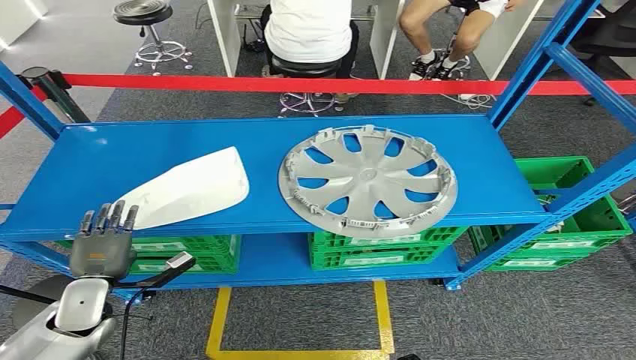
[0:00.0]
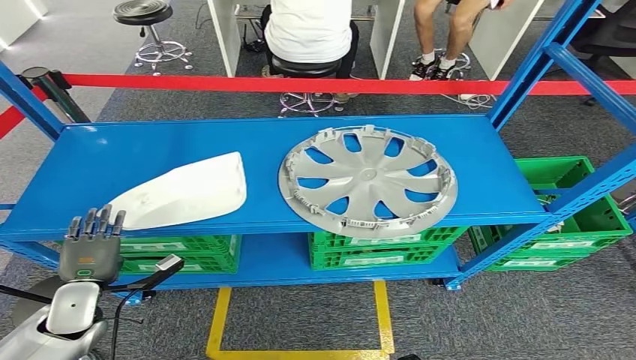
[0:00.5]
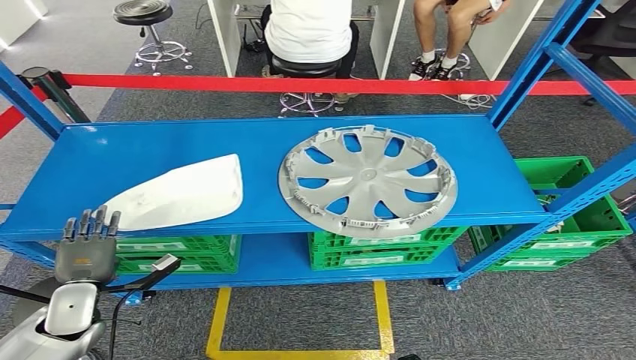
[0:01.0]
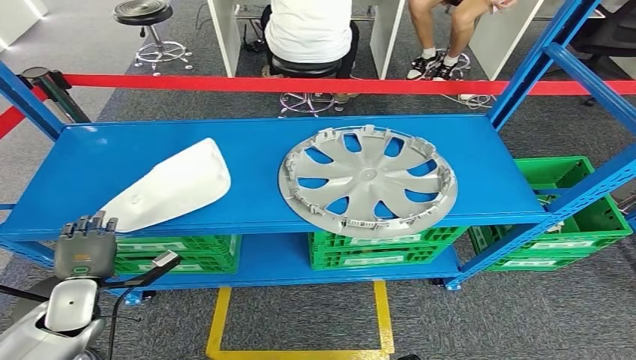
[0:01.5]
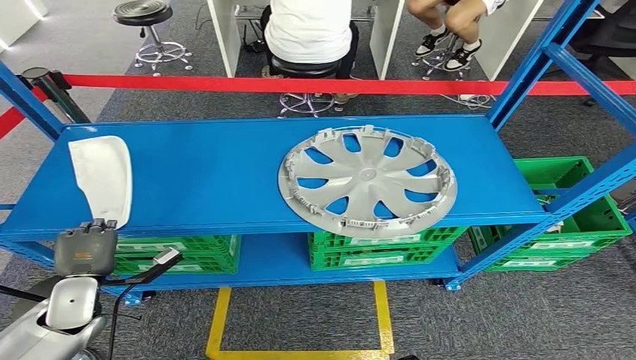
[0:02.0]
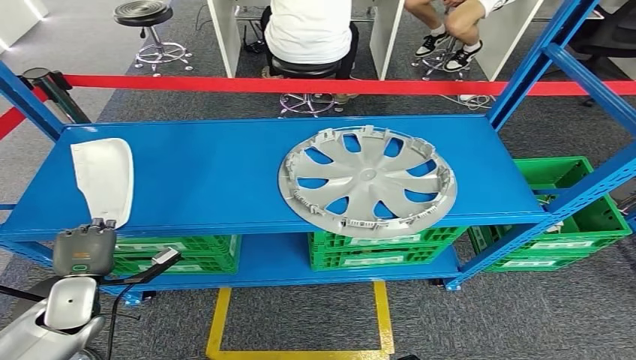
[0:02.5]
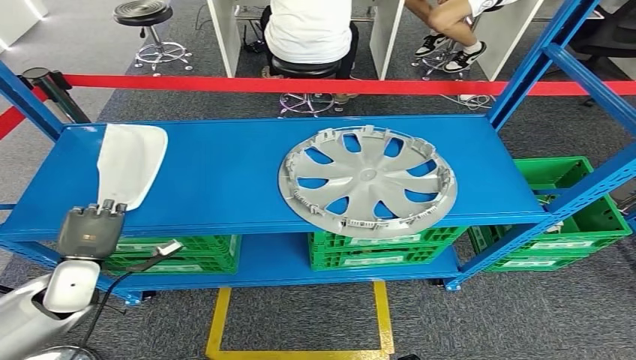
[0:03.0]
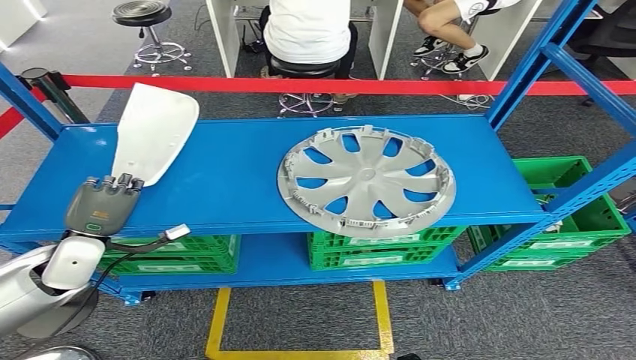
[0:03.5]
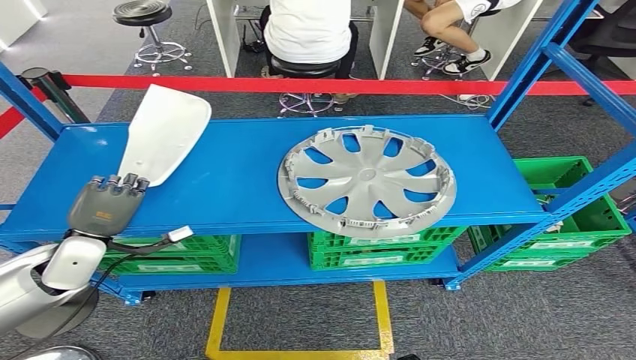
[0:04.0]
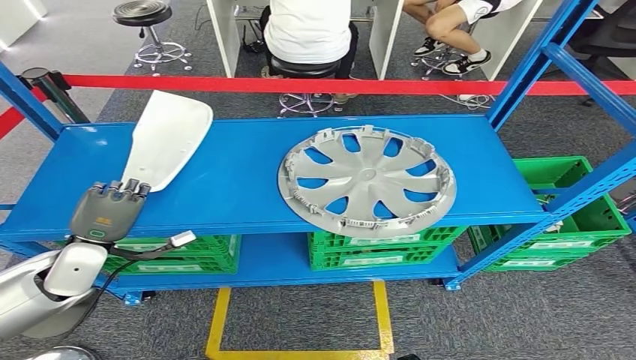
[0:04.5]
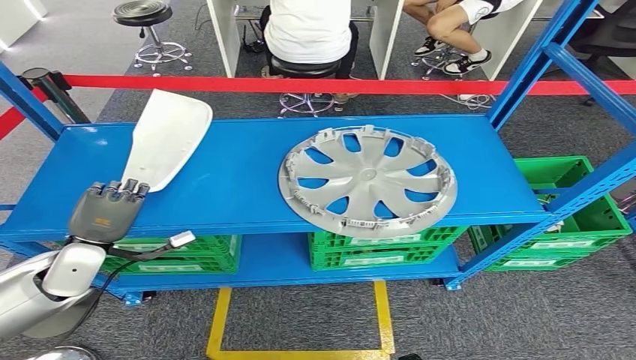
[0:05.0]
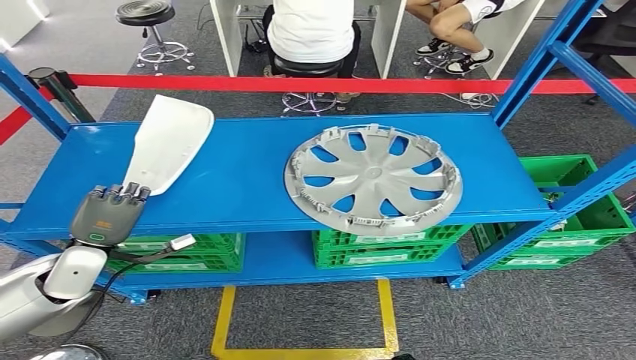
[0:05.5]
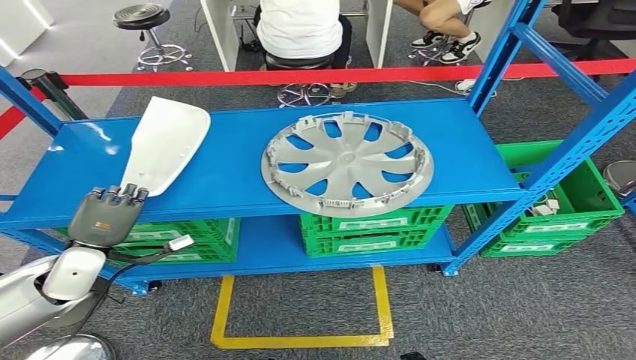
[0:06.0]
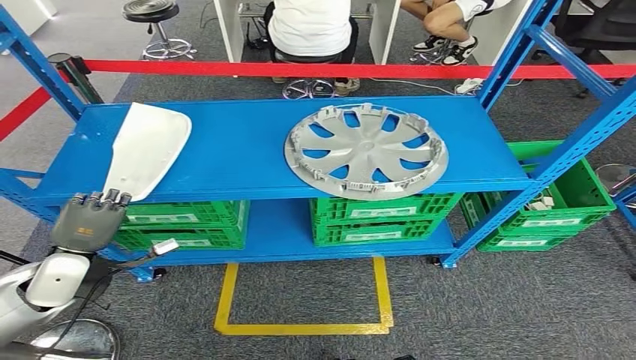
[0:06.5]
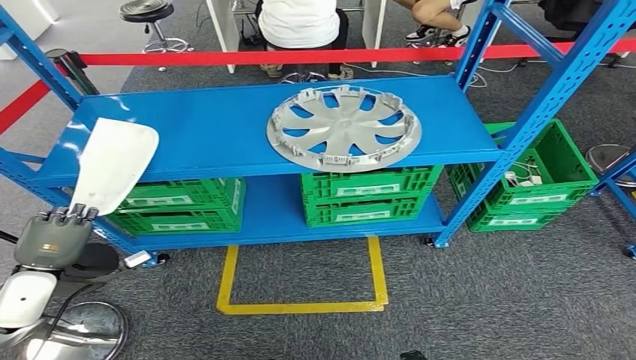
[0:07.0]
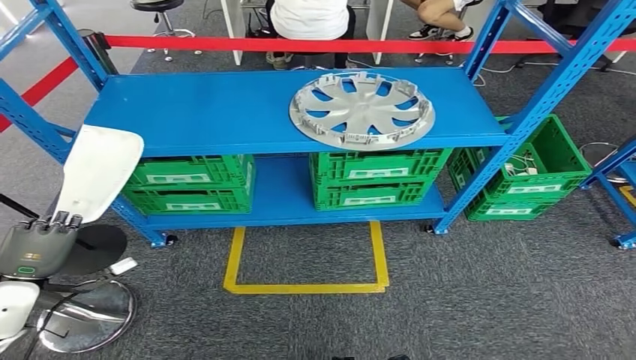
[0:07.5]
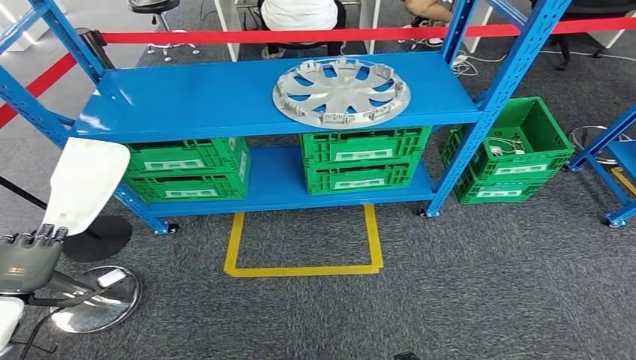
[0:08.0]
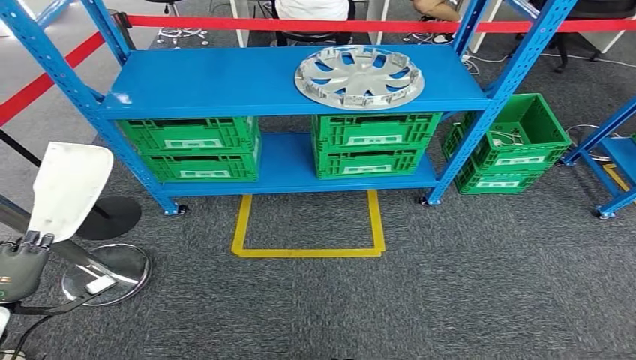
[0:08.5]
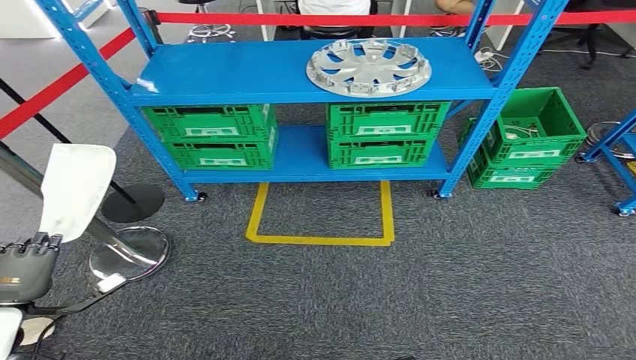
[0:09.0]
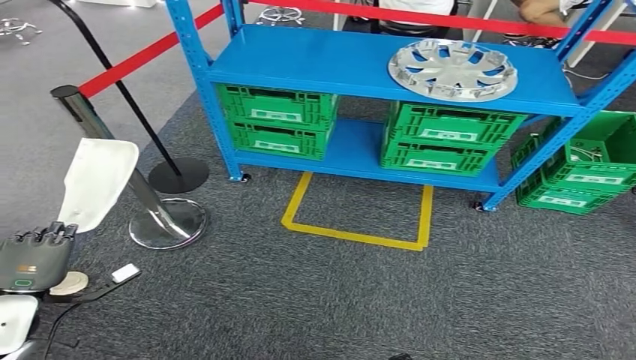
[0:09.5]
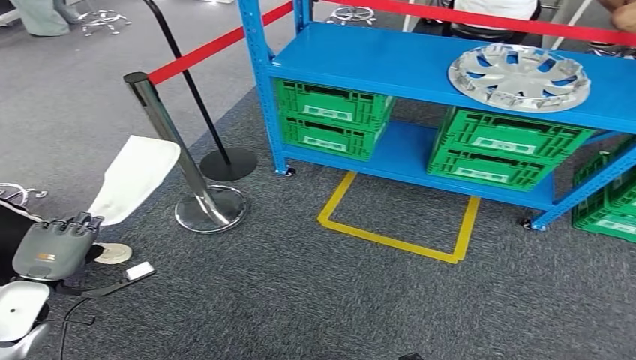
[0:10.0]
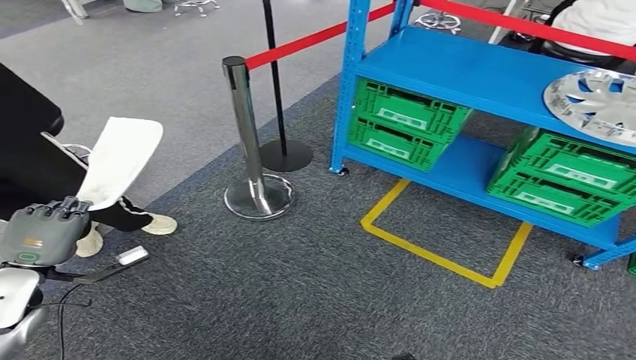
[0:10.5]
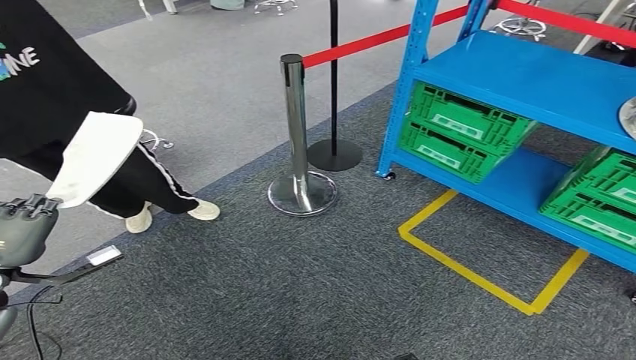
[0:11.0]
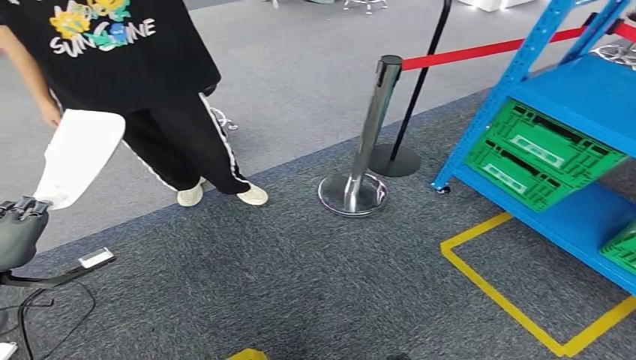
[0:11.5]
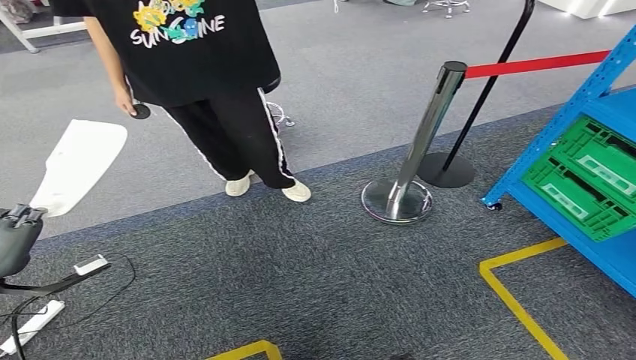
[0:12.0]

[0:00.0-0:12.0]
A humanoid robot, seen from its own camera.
Step, 0:00.0 to 0:04.5: Pick up the small component from the shelf.
0:02.0 to 0:04.0: The left hand shifts approximately 10 cm upward and forward.

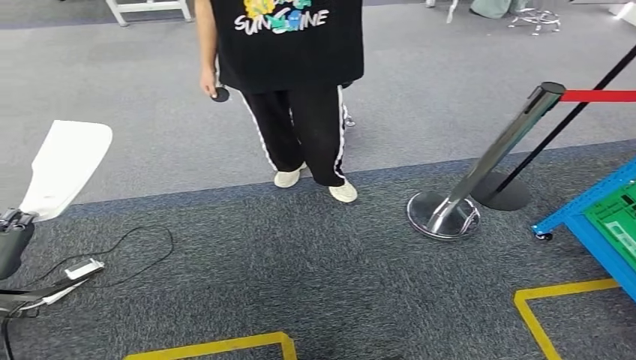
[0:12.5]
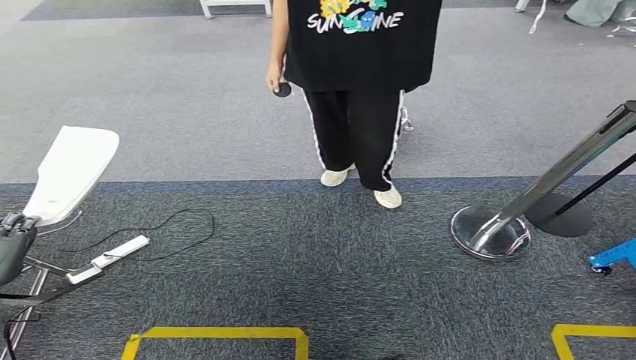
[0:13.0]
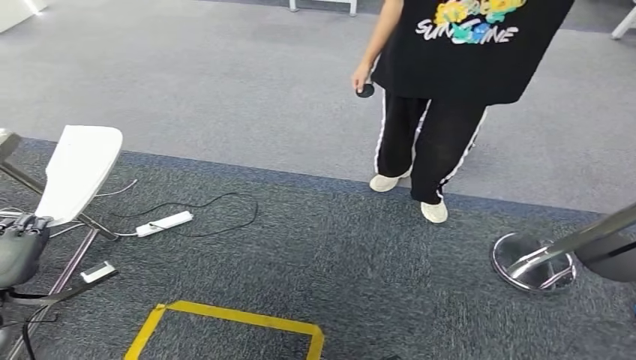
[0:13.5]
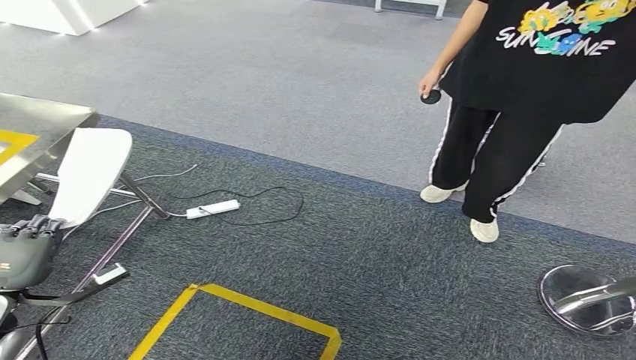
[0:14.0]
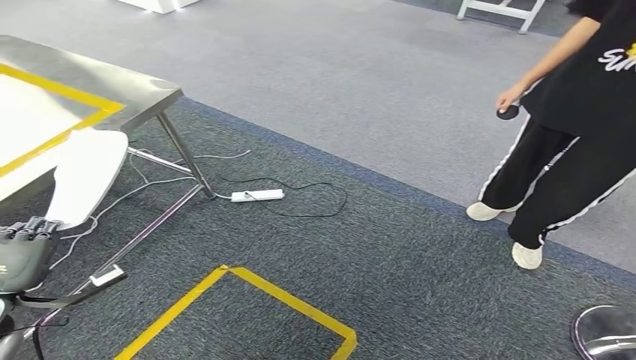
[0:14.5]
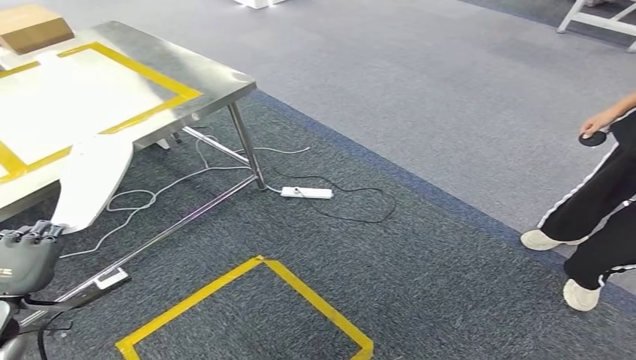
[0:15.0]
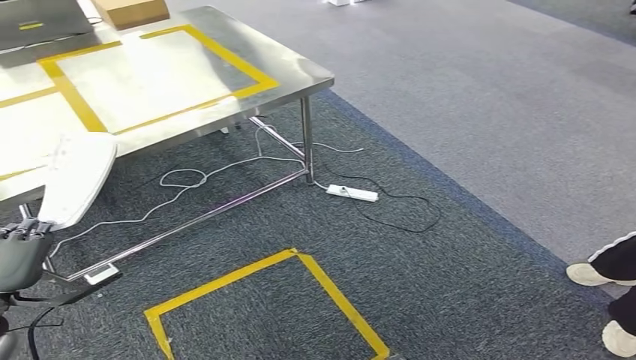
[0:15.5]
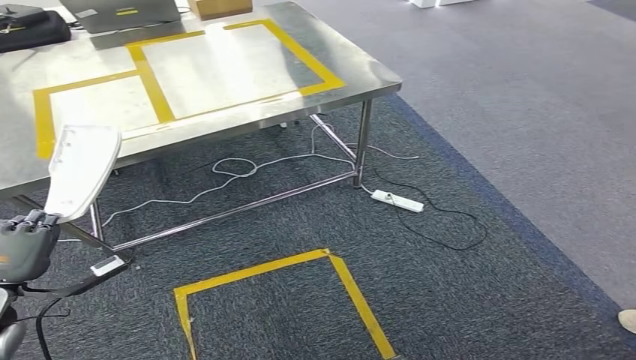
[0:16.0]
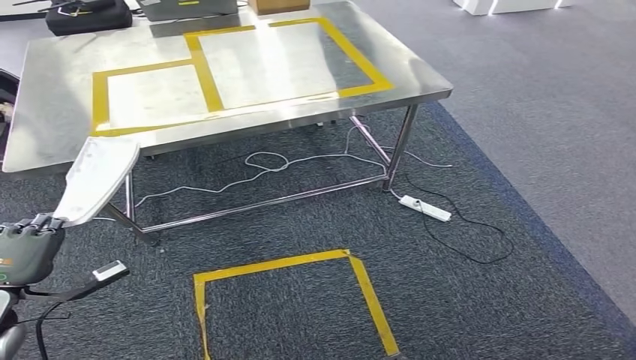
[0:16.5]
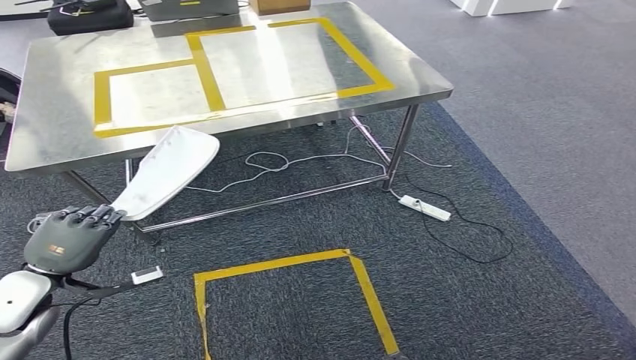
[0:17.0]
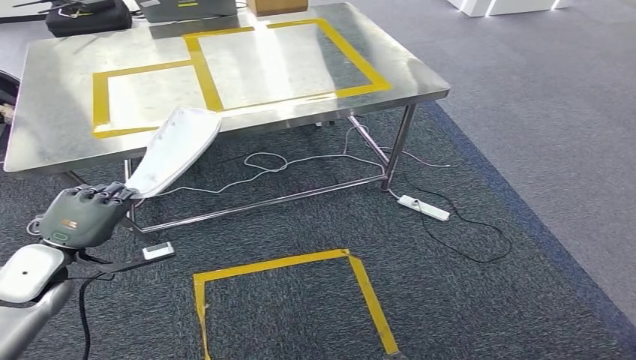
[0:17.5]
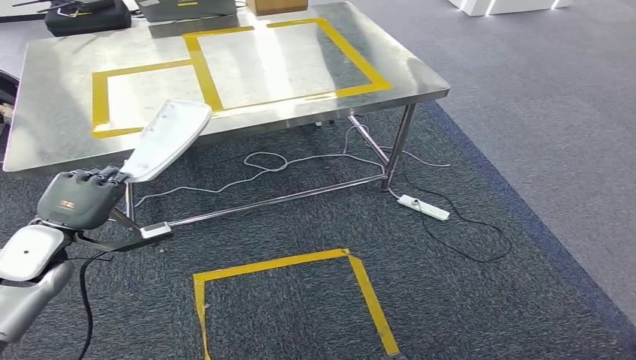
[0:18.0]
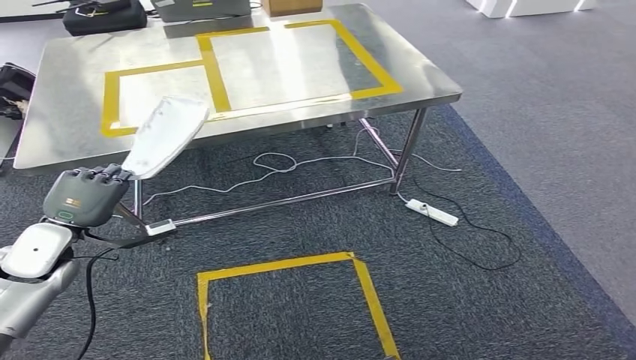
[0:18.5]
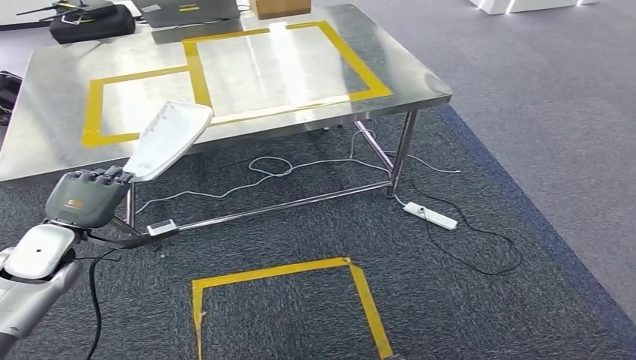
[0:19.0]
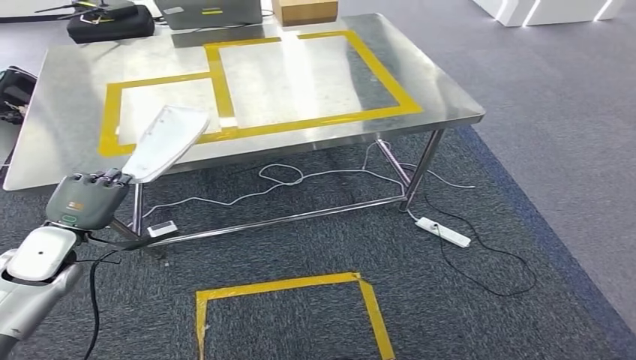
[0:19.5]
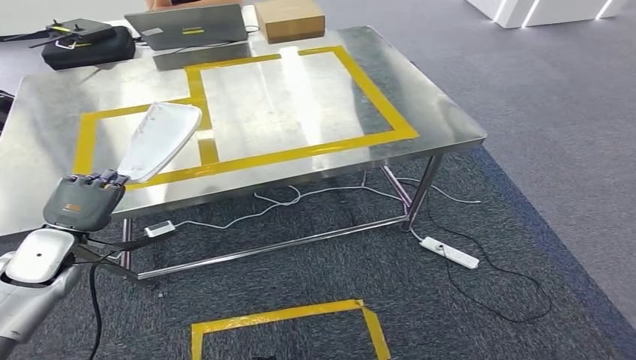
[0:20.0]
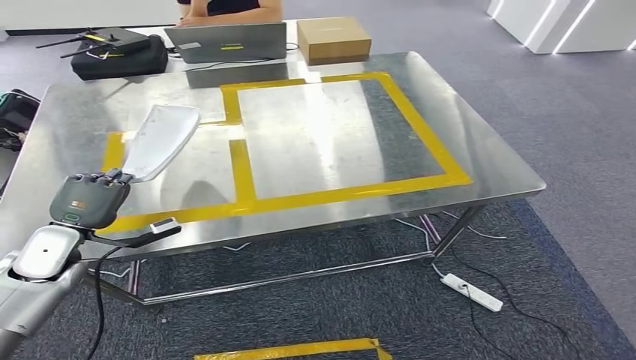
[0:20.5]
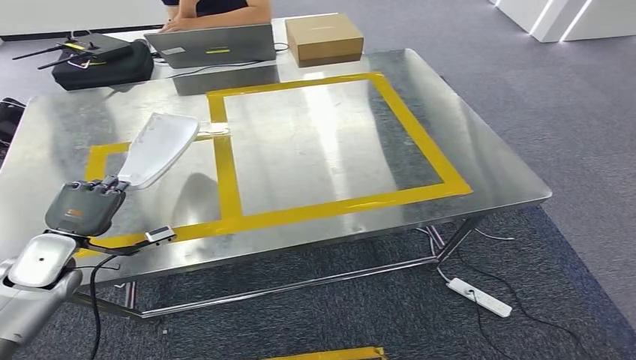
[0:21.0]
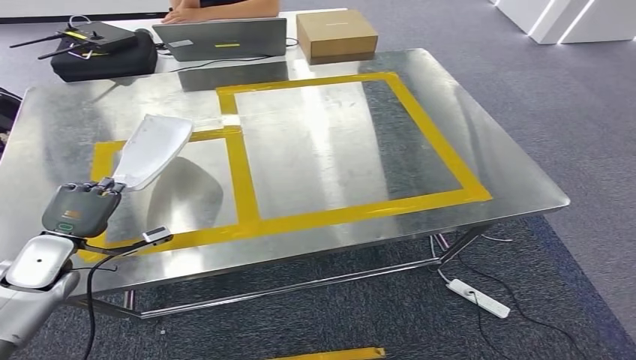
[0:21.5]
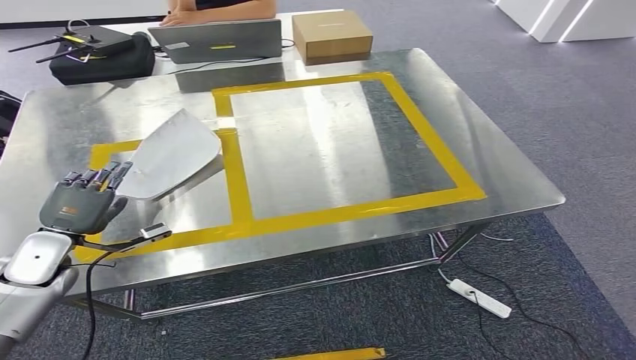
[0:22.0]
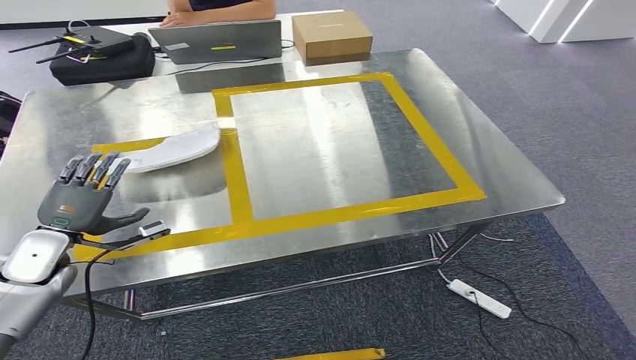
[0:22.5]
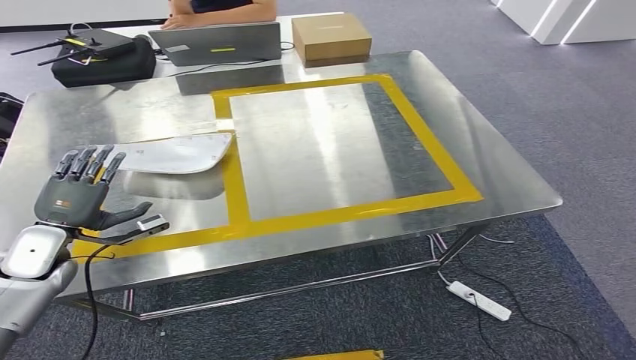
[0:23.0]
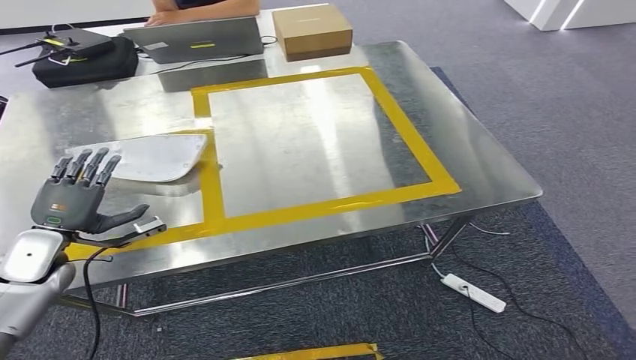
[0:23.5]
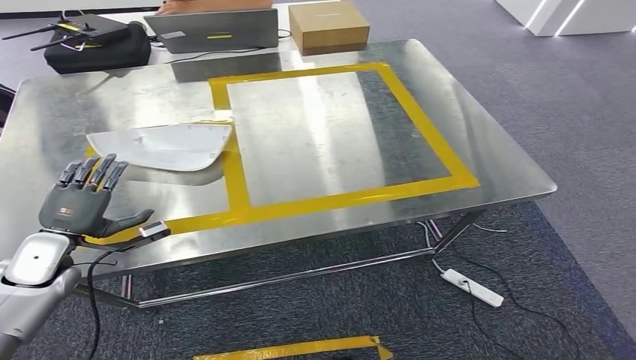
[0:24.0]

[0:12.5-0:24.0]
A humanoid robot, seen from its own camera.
Step, 0:12.5 to 0:17.5: Move the small component to the workbench.
